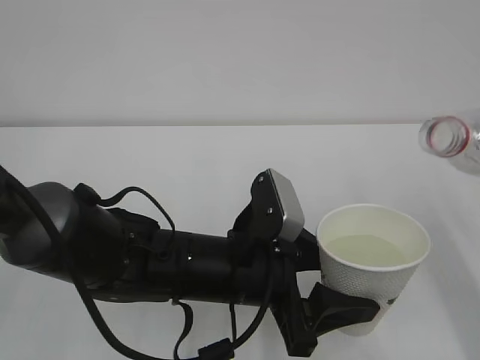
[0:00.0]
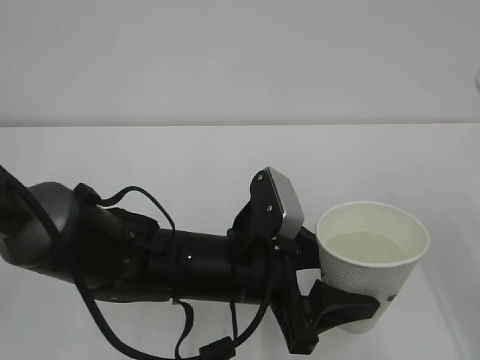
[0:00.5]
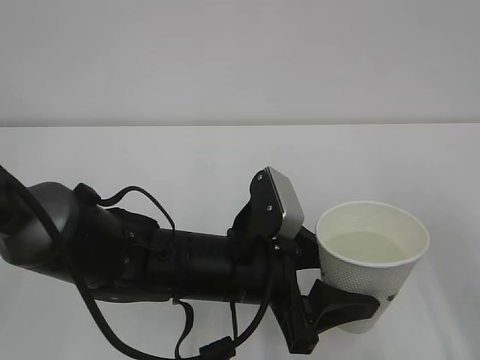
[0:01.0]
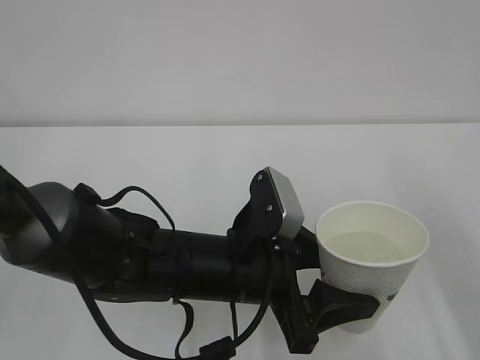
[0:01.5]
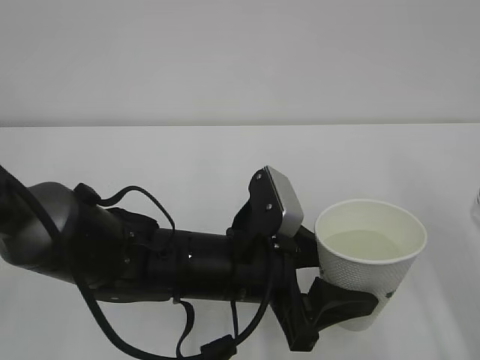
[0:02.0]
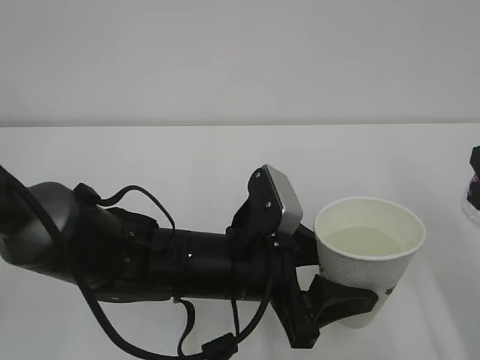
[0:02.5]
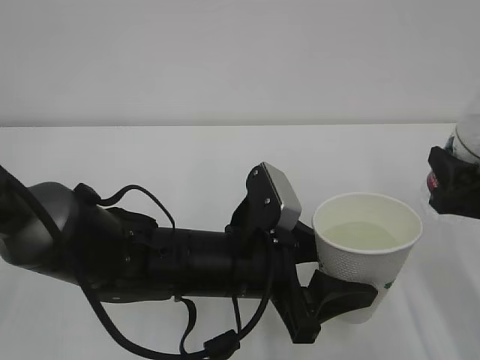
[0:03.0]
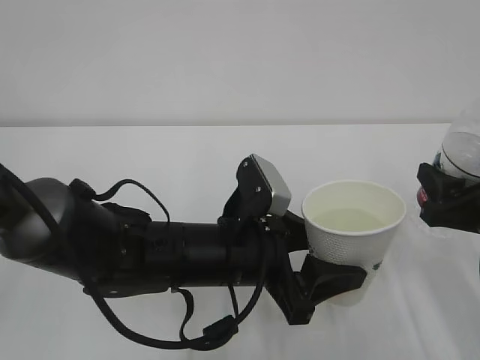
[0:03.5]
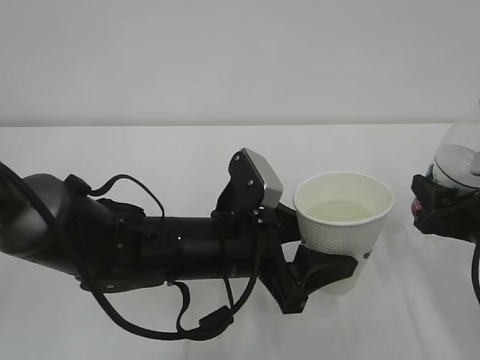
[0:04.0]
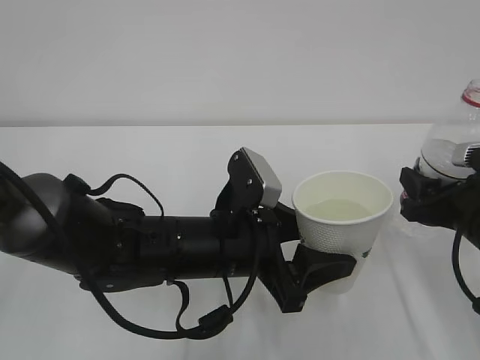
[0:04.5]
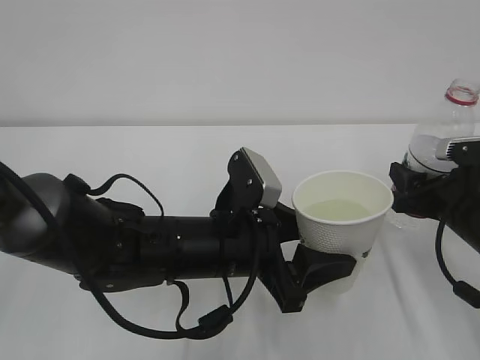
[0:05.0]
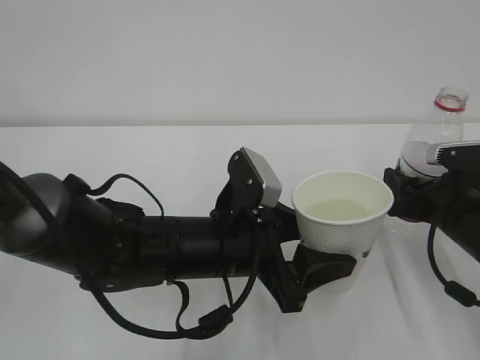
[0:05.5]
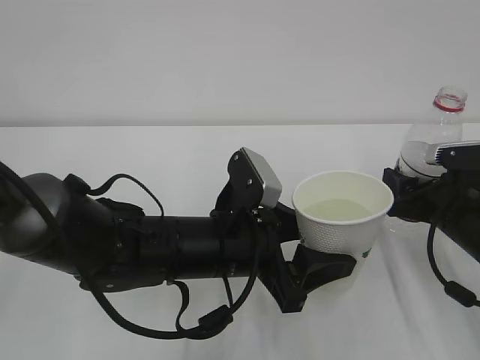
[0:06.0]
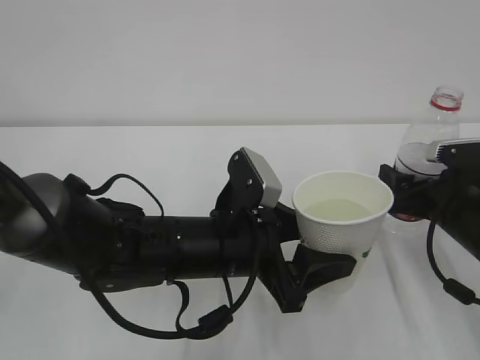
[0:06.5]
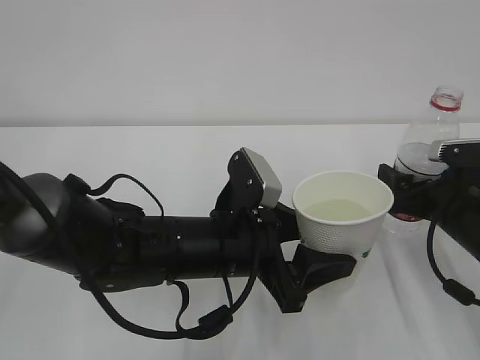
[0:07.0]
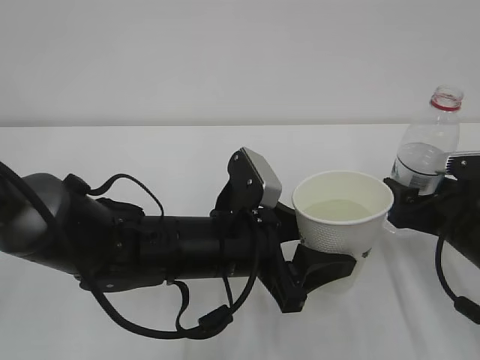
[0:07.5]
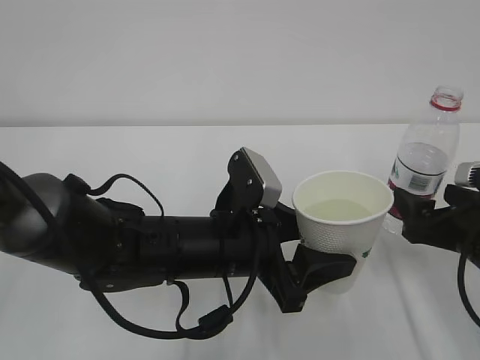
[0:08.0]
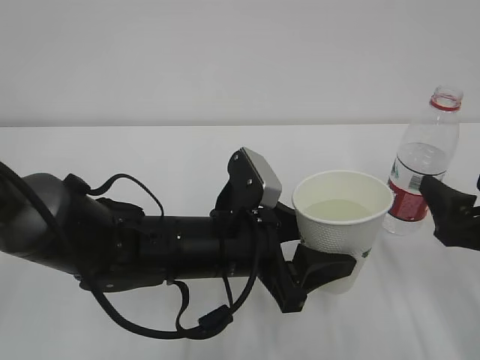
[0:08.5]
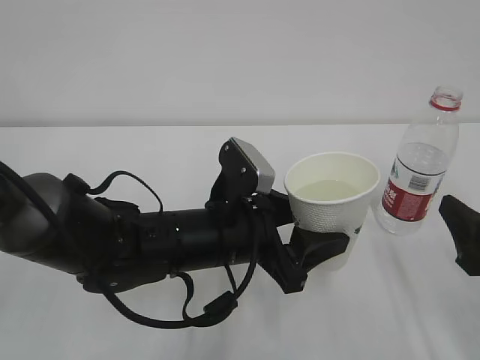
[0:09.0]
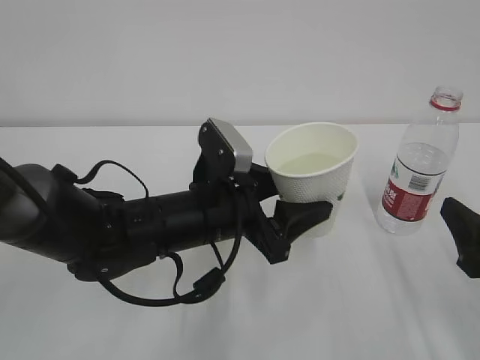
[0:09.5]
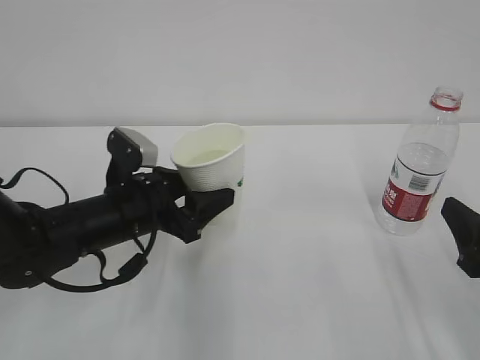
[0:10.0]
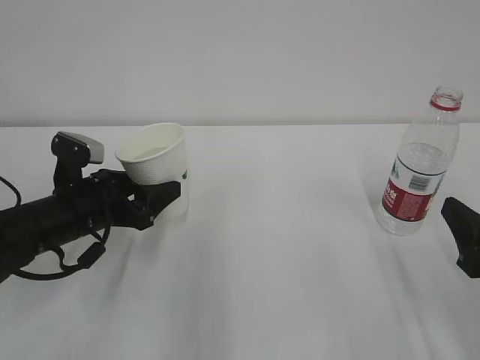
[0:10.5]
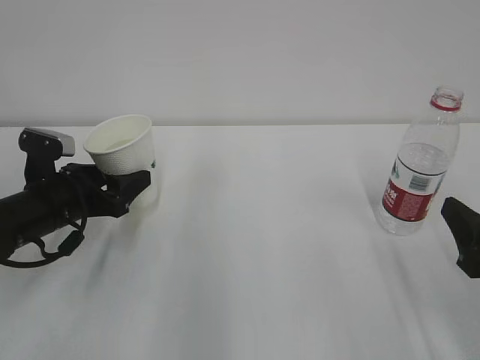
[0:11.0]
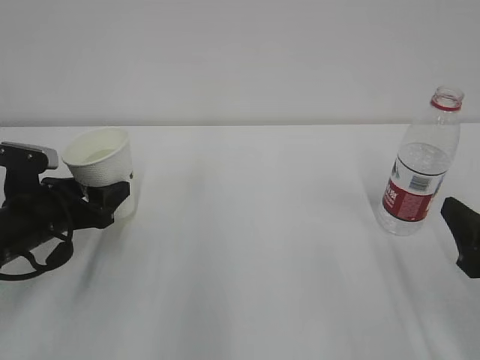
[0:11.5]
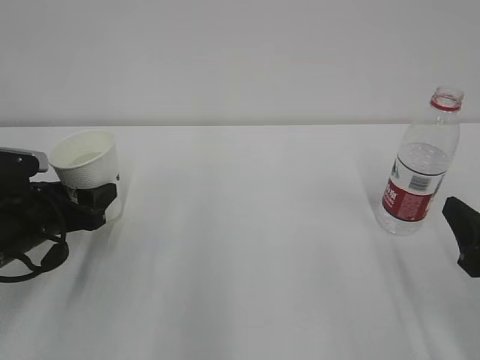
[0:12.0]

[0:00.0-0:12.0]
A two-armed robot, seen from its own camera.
0:02.0 to 0:04.0: The right gripper shifts roughly 5 cm downward.
0:04.0 to 0:06.0: The right gripper goes approximately 5 cm forward.
0:06.0 to 0:08.0: The right gripper goes some 5 cm backward, and opens its fingers.
0:08.0 to 0:10.0: The right gripper travels backward by roughly 5 cm. Meanwhile the left gripper is displaced to the left and forward by some 15 cm.
0:10.0 to 0:12.0: The left gripper is displaced to the left by approximately 10 cm.

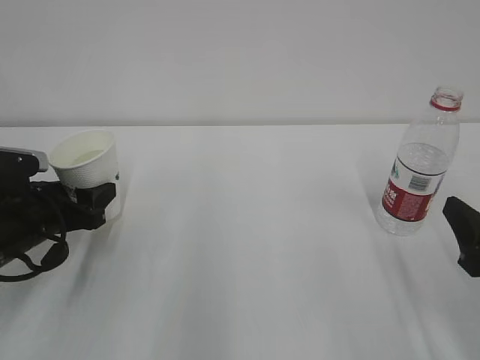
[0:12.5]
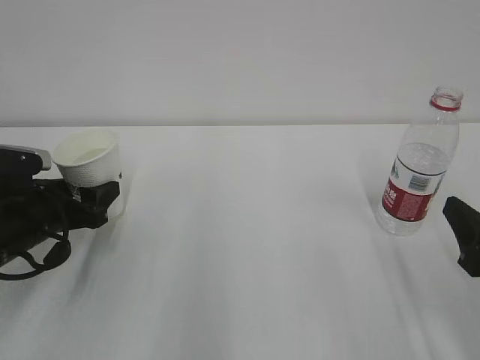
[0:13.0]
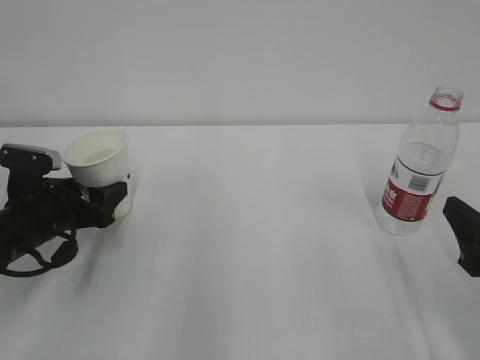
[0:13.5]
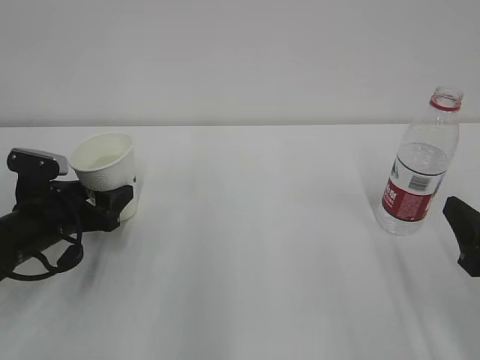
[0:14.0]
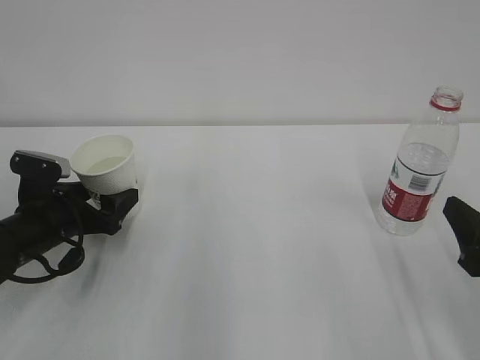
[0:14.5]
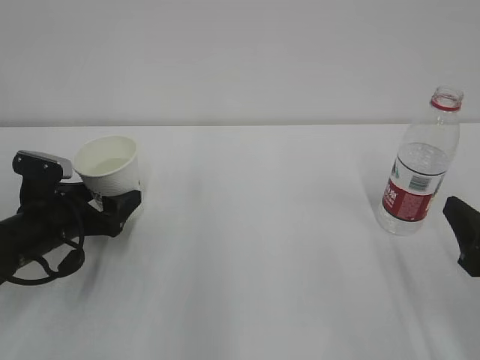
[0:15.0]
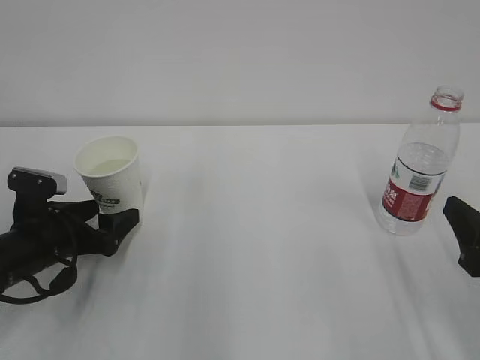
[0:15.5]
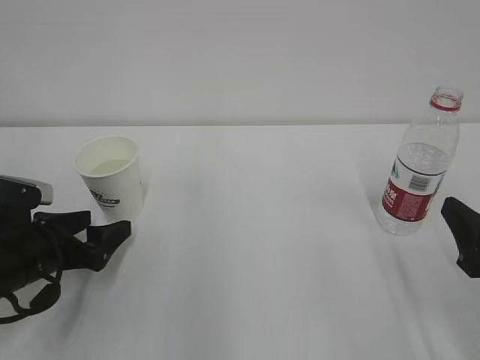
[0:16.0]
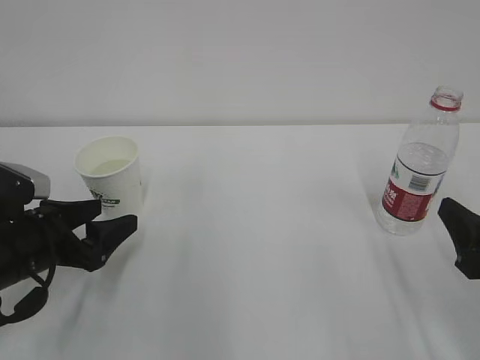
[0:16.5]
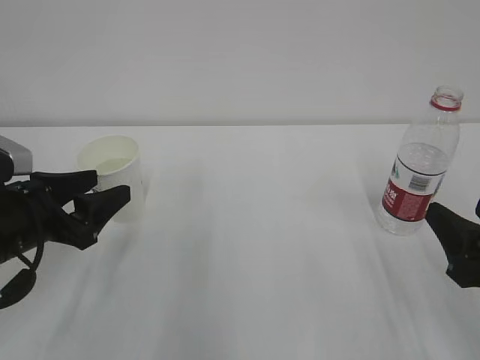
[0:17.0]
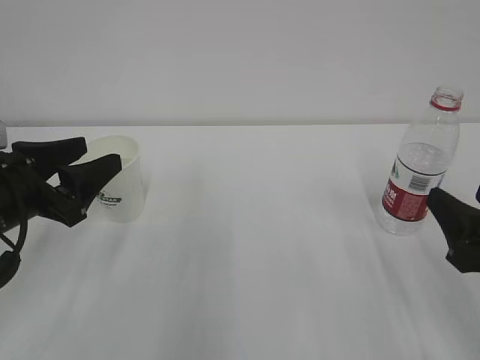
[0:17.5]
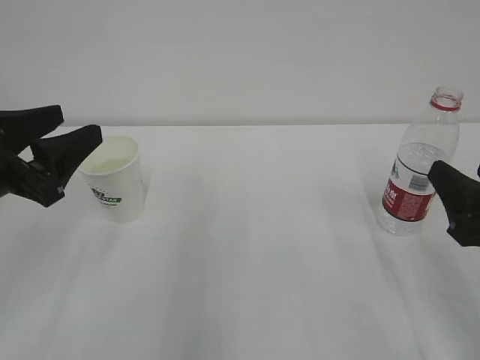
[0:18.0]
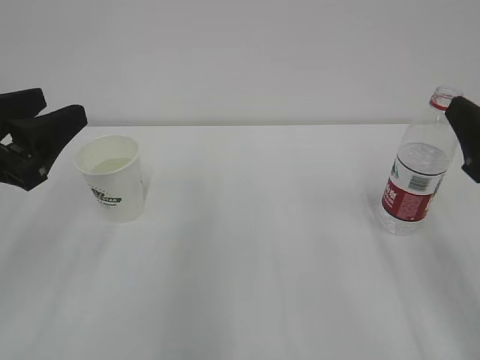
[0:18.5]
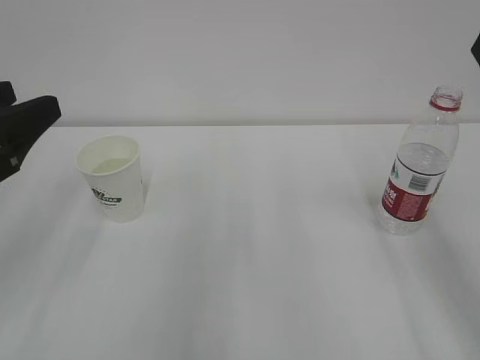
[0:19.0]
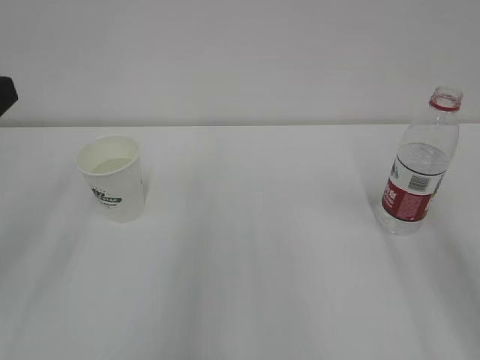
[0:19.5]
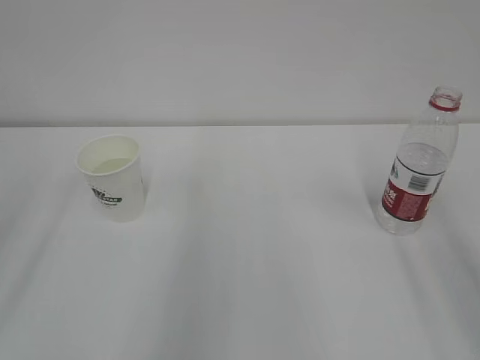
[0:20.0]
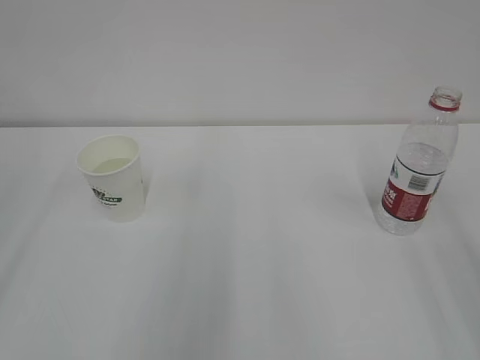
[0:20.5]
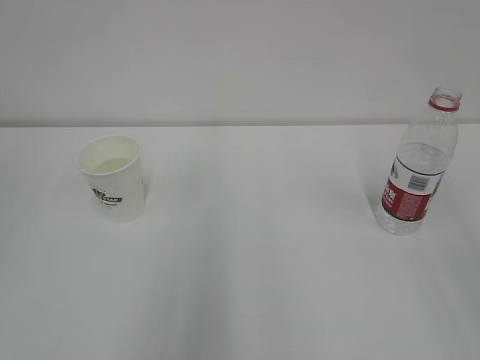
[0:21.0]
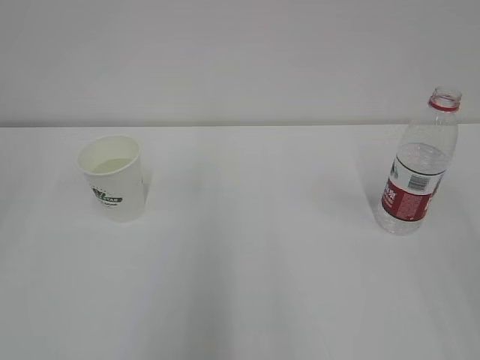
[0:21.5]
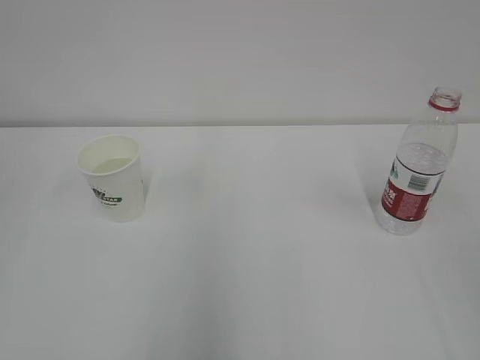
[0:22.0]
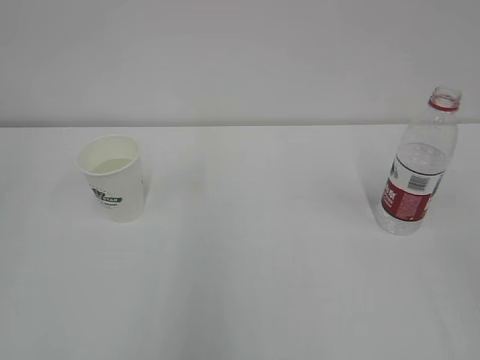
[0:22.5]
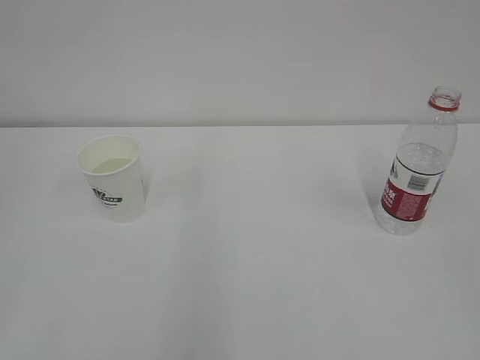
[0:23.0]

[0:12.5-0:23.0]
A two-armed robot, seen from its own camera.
0:12.5 to 0:14.5: The left gripper opens its fingers.
0:14.5 to 0:16.5: The left gripper goes approximately 5 cm backward.
0:16.5 to 0:19.0: The two grippers go some 15 cm upward.
0:19.0 to 0:21.0: The left gripper is displaced backward, upward and to the left by approximately 15 cm.

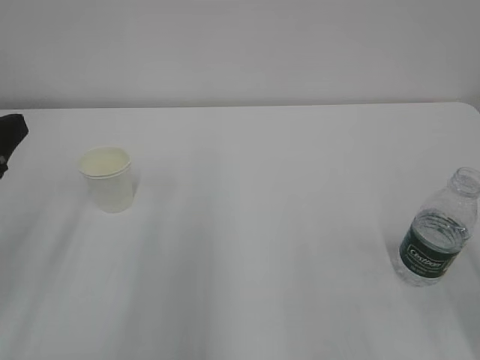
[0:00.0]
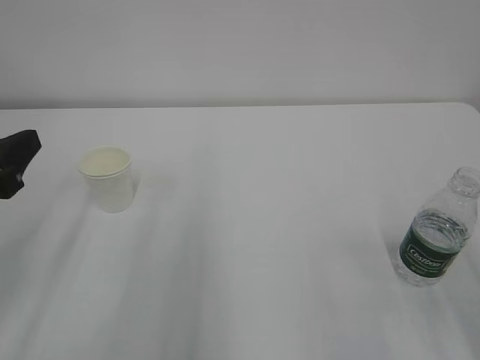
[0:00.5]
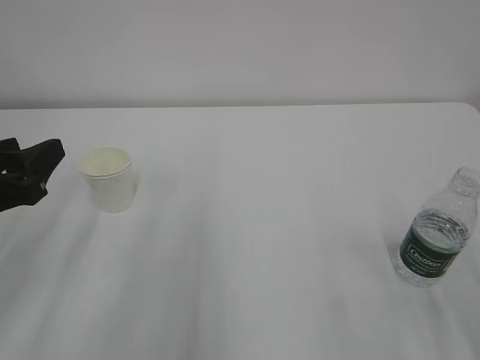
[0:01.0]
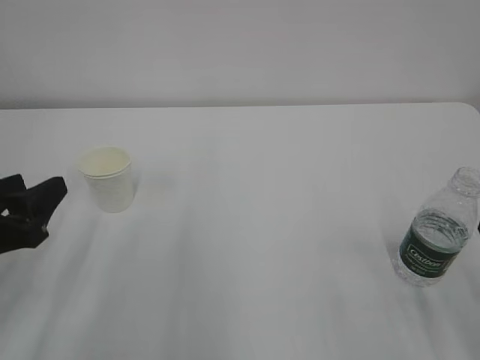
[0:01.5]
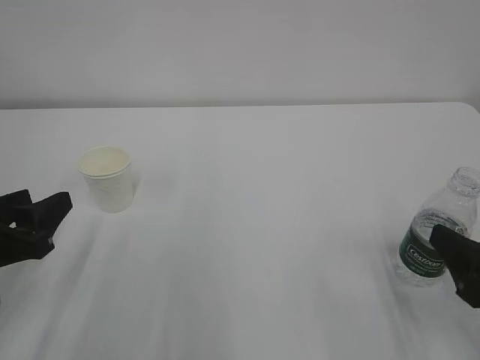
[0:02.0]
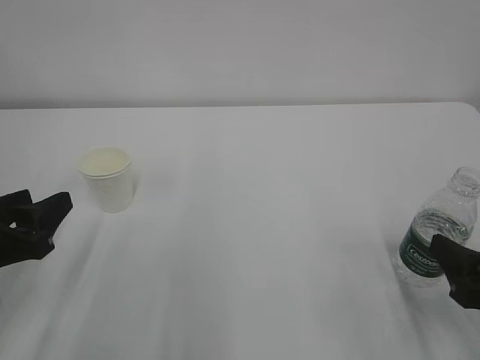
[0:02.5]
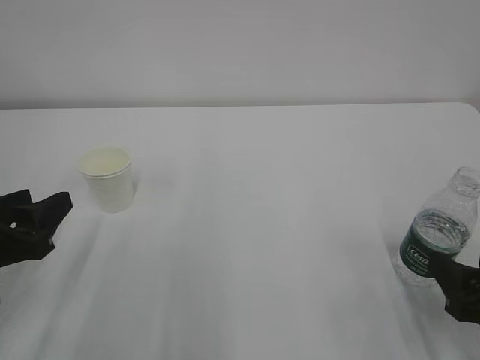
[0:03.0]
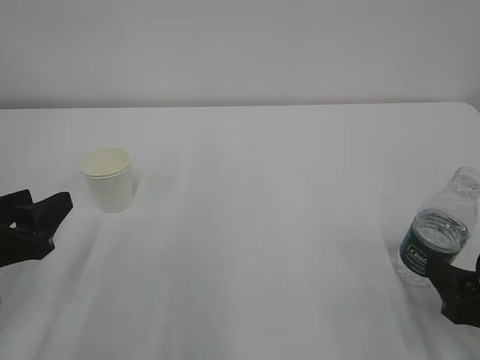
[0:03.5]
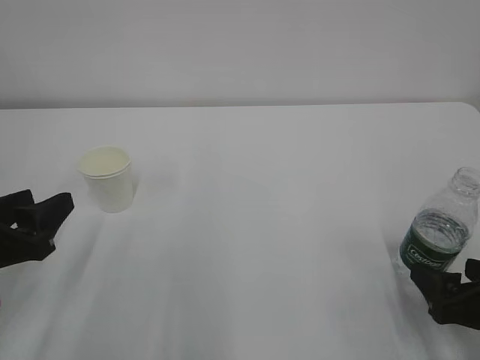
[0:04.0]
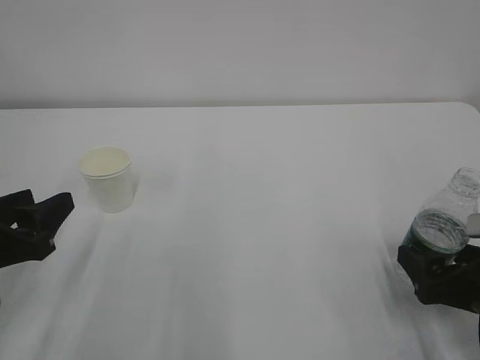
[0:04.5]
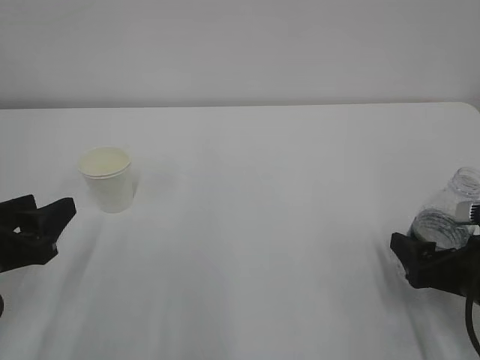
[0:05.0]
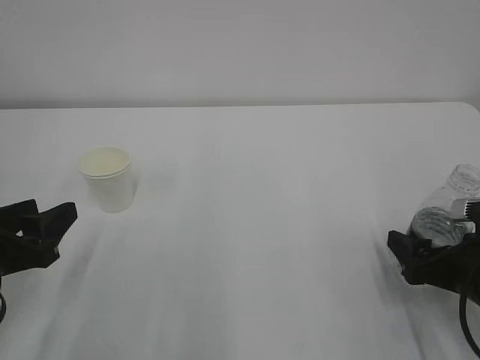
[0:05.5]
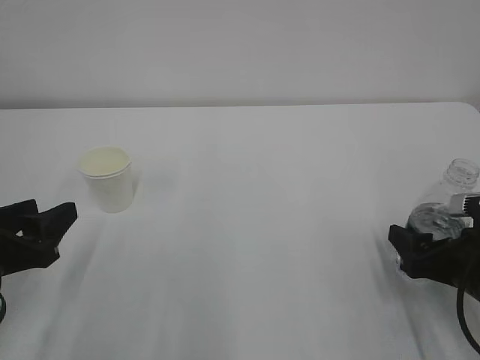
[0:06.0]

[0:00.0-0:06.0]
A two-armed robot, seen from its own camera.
0:00.0 to 0:02.0: The grippers both shift downward by about 10 cm.
0:02.0 to 0:04.0: The right gripper shifts roughly 5 cm downward.
0:04.0 to 0:06.0: The right gripper shifts roughly 5 cm forward.
